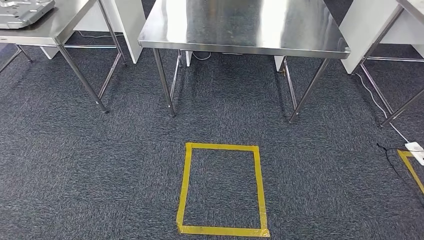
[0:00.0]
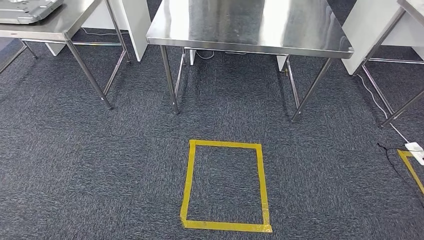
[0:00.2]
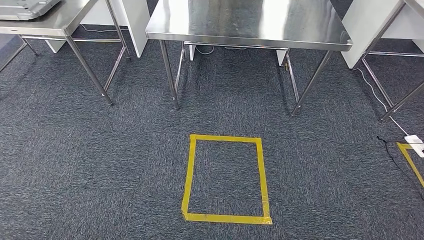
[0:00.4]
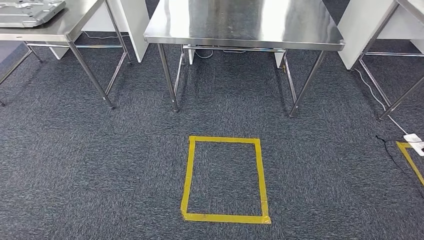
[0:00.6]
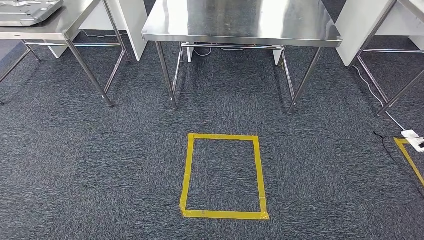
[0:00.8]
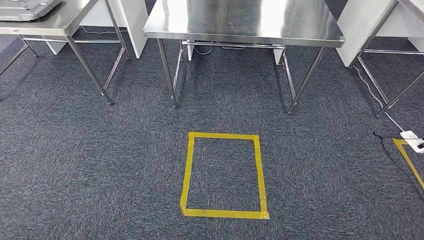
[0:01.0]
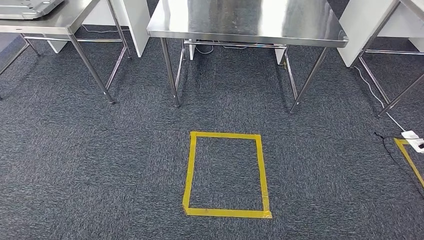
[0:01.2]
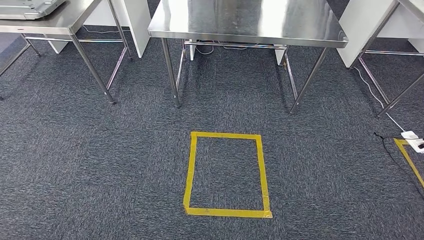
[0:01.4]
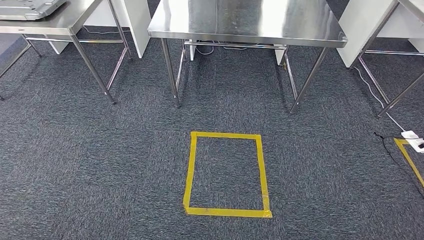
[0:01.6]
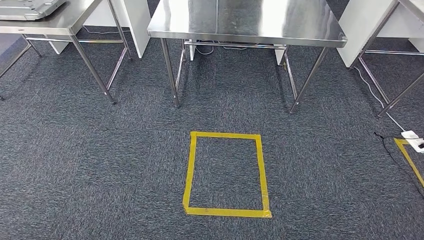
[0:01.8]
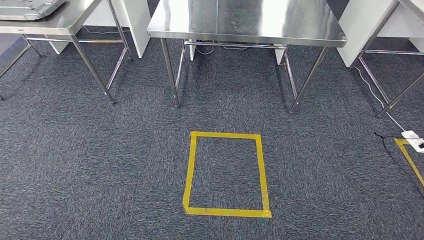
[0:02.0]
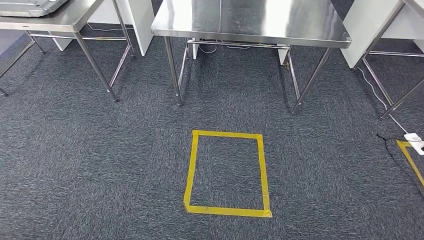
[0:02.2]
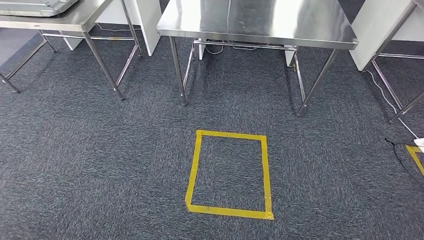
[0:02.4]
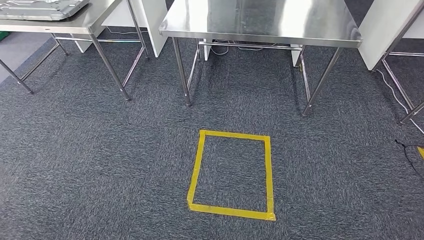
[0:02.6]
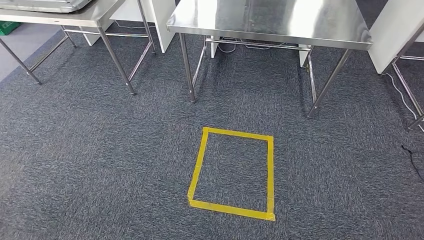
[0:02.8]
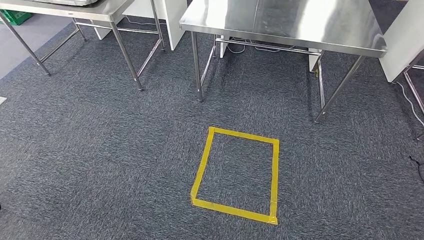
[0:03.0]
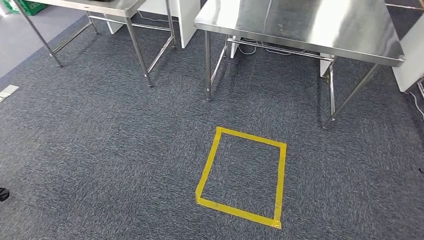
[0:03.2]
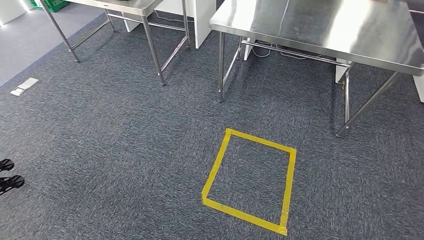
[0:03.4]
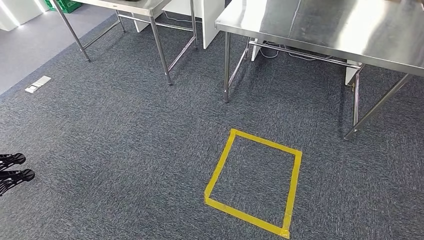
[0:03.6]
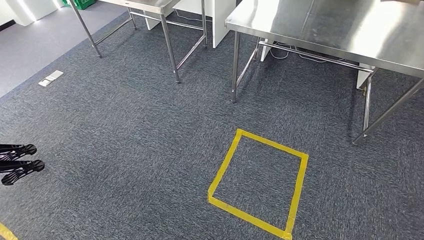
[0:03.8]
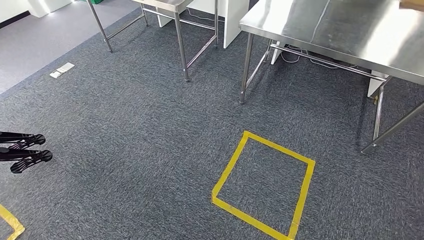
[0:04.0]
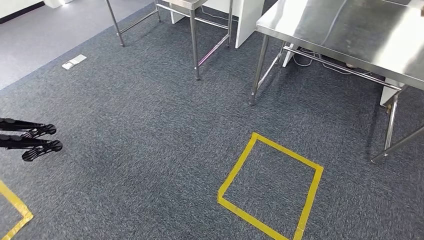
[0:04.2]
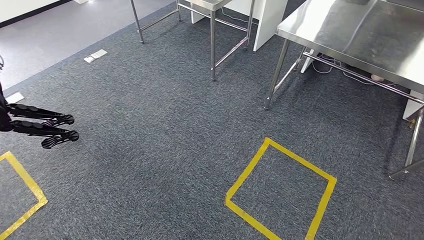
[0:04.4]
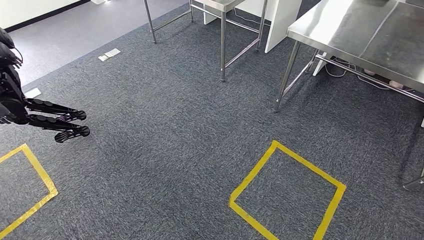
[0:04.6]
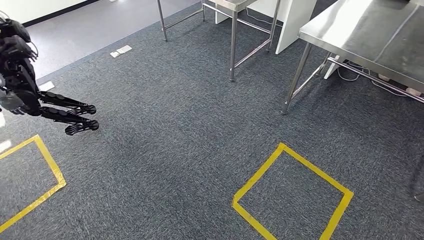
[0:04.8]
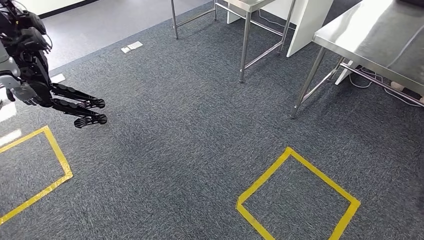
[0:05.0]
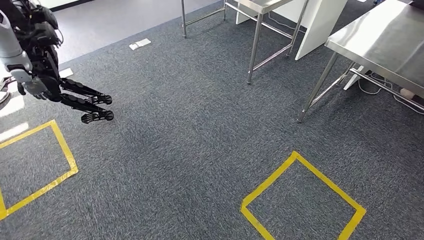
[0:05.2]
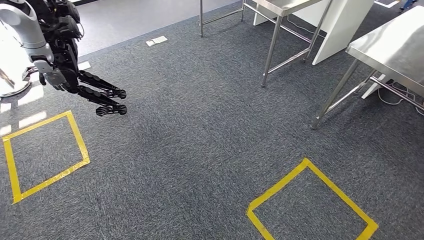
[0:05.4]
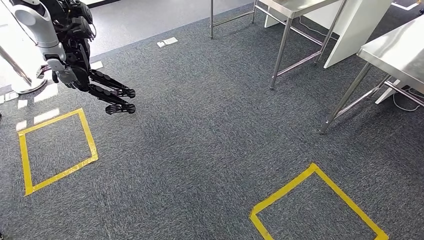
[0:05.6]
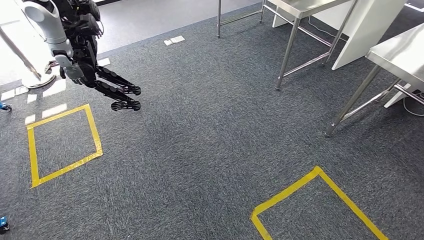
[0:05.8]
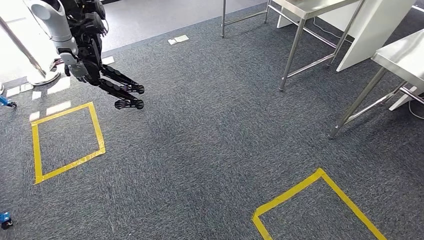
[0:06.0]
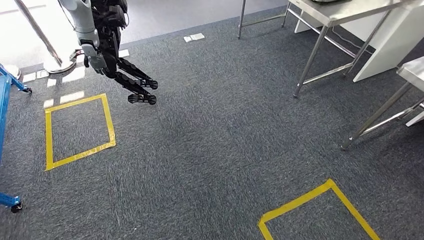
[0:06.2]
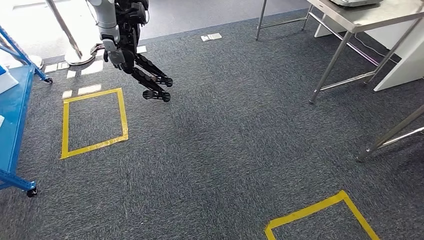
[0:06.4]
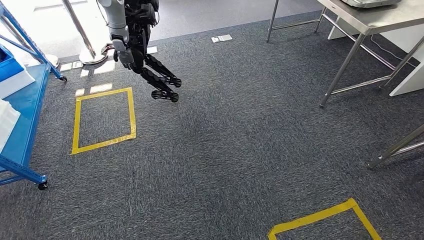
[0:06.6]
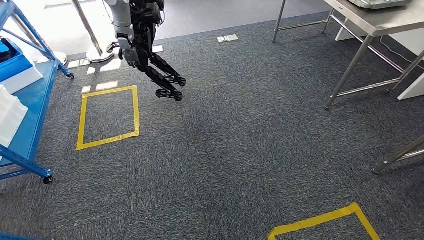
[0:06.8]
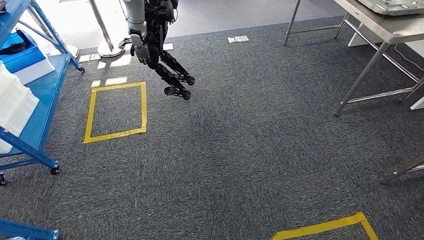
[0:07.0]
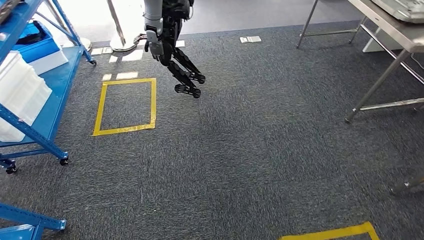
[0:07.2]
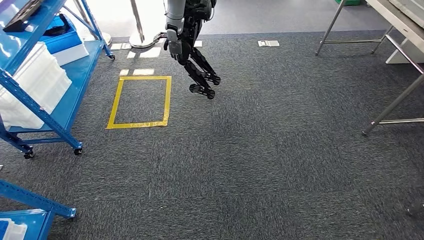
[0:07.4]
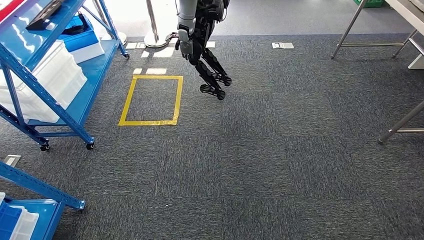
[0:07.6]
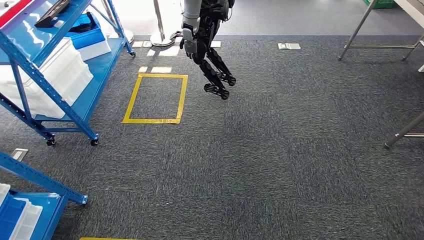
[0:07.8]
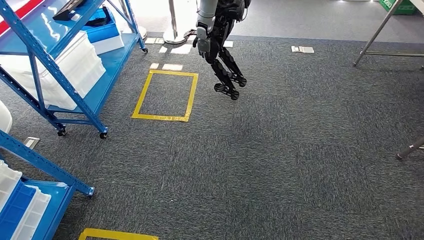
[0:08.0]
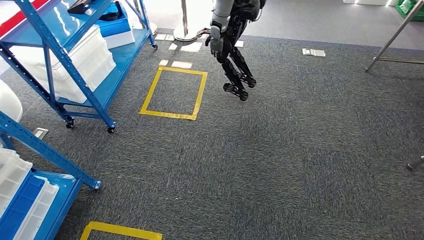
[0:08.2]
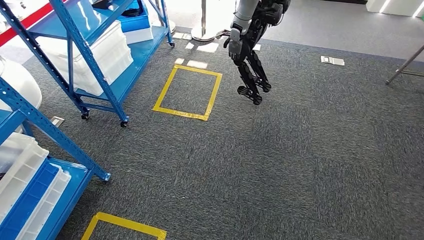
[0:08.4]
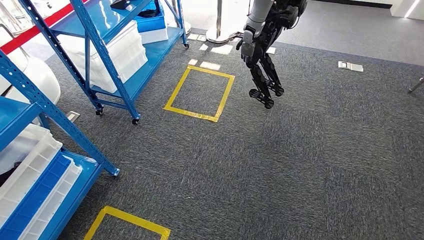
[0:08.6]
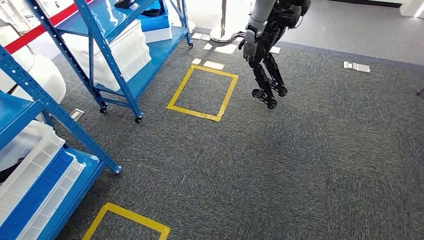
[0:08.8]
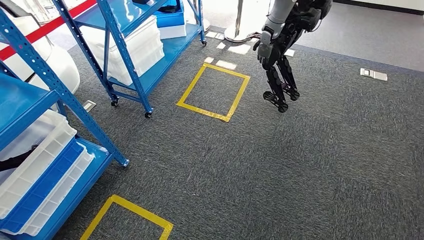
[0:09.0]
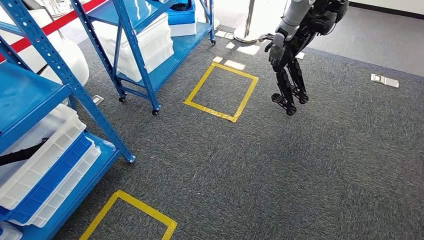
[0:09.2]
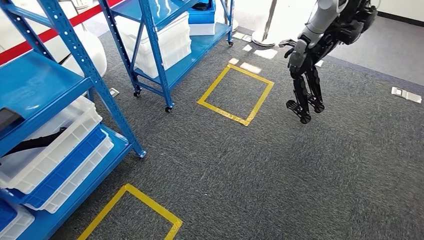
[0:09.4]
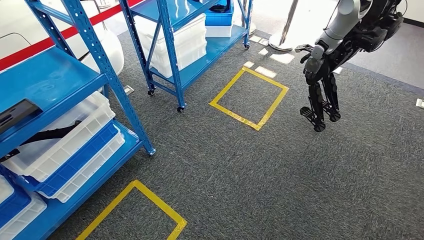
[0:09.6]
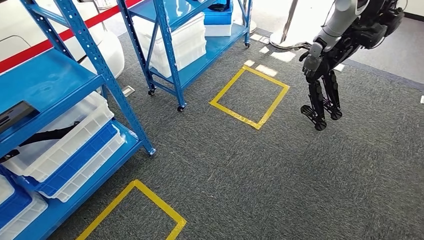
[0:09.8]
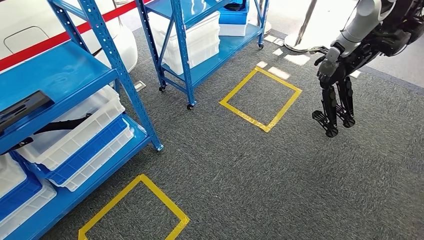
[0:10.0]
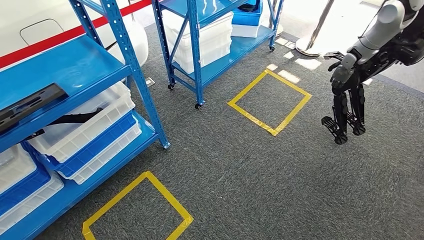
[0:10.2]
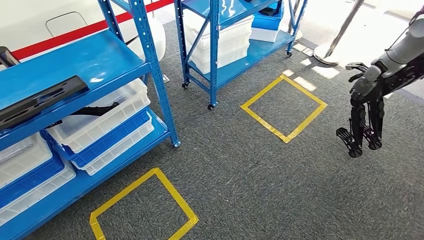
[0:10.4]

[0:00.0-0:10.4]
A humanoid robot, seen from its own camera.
0:00.0 to 0:01.4: Both hands stay put.

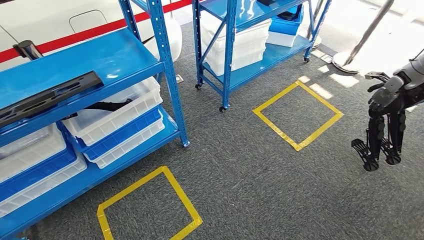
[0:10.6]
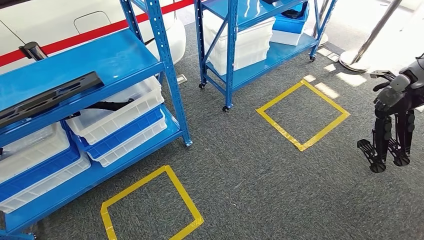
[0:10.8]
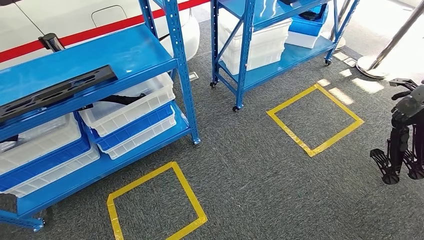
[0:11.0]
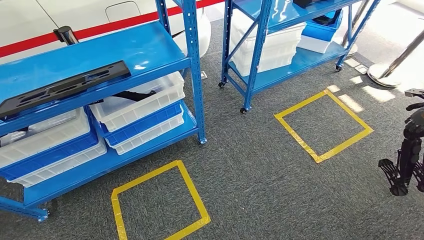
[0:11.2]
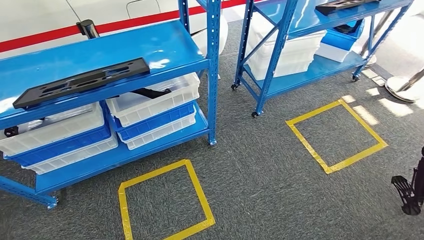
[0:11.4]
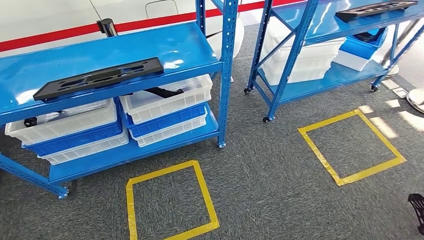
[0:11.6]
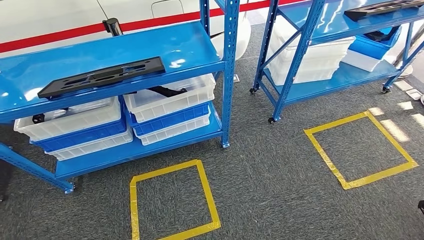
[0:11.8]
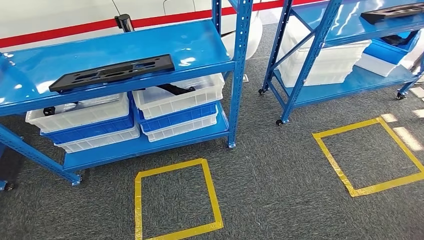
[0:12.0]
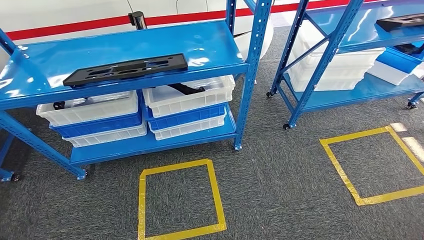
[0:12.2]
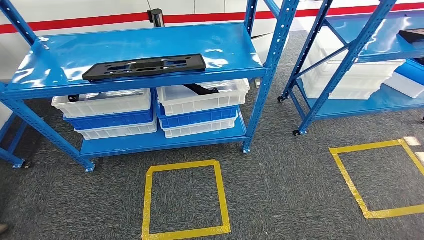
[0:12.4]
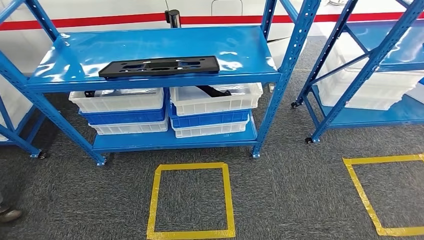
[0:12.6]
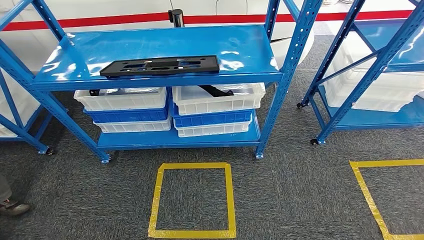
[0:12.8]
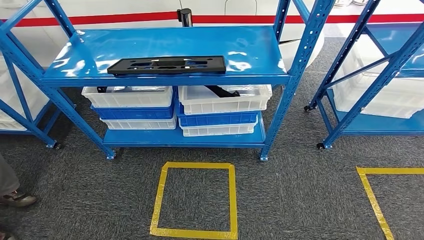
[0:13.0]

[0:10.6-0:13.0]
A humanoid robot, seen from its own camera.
Step, 0:10.6 to 0:12.8: Move to the initial position of the shelf.
